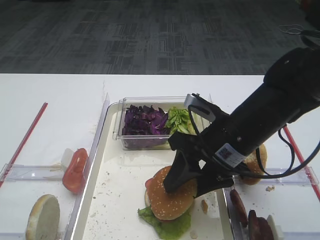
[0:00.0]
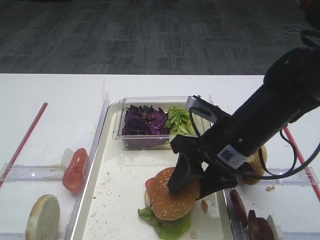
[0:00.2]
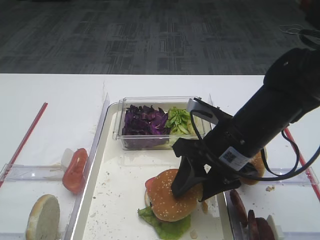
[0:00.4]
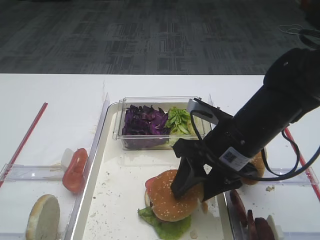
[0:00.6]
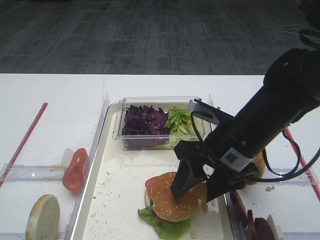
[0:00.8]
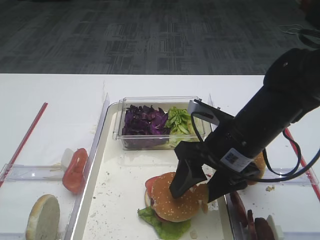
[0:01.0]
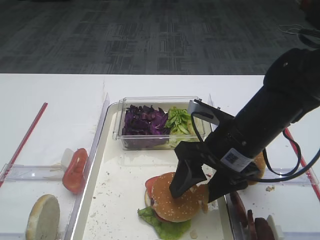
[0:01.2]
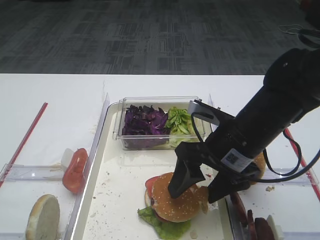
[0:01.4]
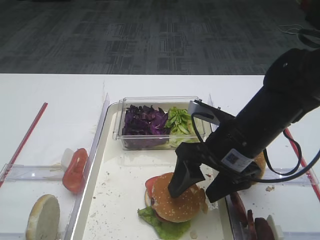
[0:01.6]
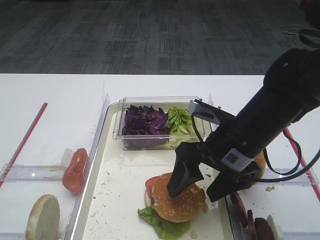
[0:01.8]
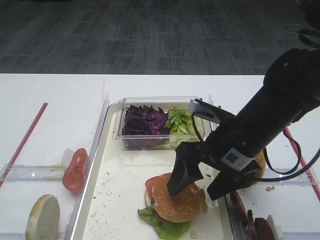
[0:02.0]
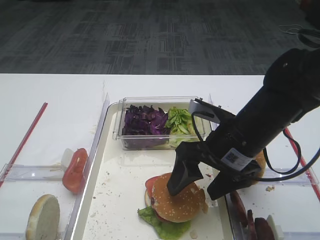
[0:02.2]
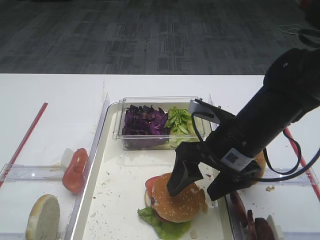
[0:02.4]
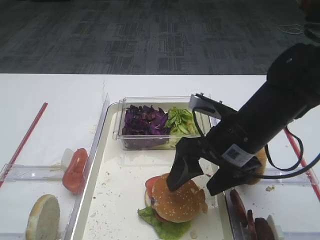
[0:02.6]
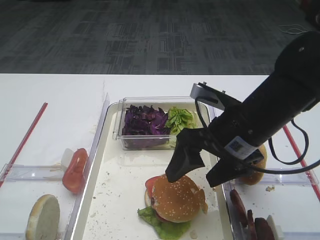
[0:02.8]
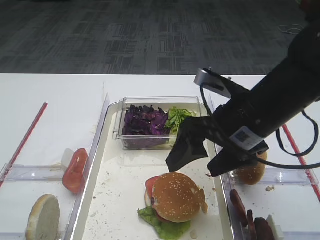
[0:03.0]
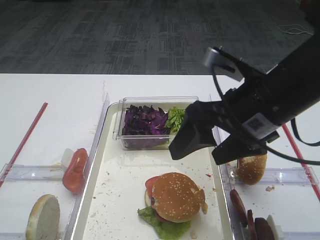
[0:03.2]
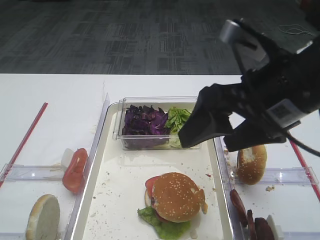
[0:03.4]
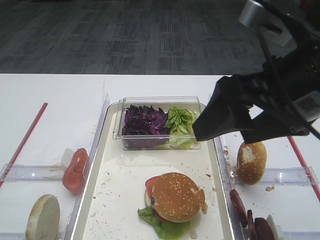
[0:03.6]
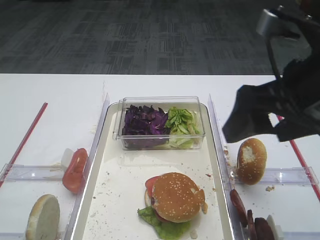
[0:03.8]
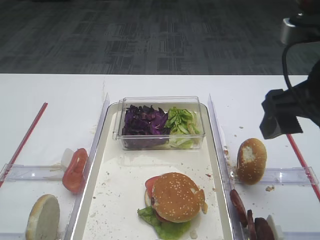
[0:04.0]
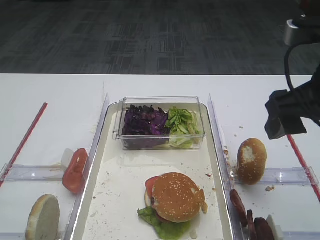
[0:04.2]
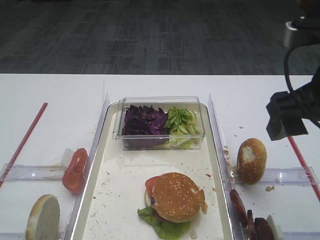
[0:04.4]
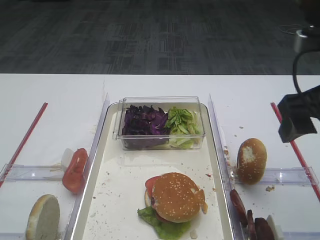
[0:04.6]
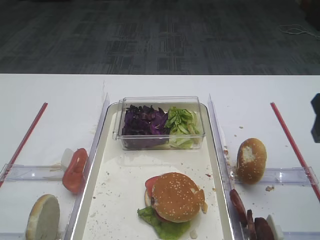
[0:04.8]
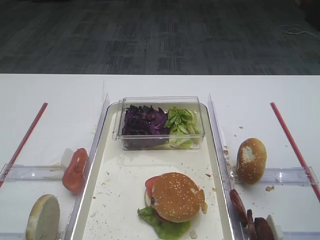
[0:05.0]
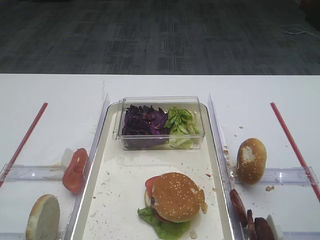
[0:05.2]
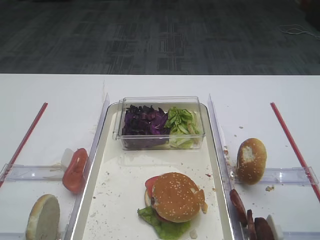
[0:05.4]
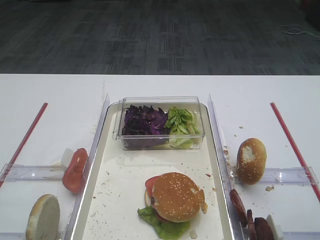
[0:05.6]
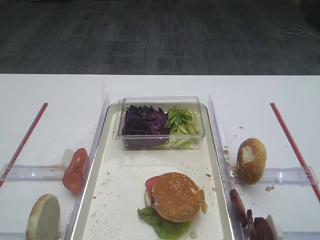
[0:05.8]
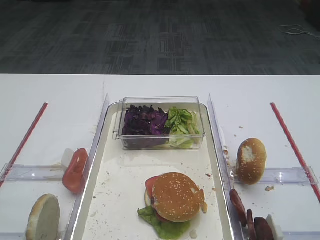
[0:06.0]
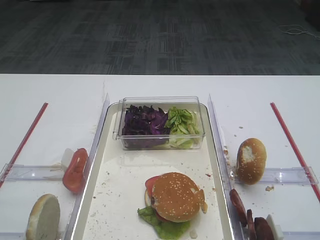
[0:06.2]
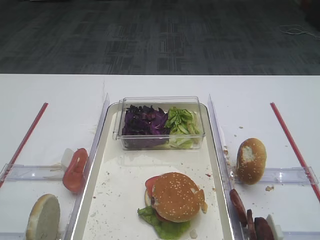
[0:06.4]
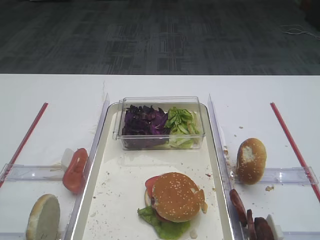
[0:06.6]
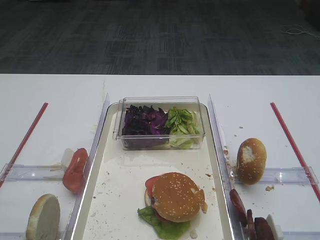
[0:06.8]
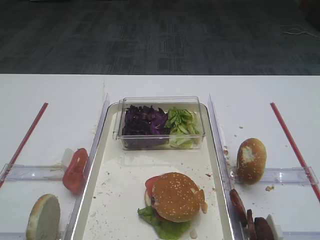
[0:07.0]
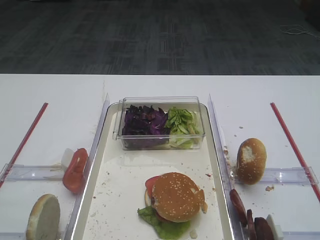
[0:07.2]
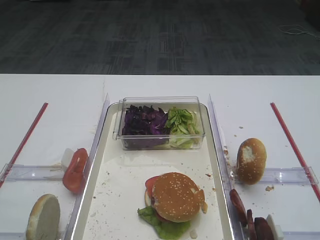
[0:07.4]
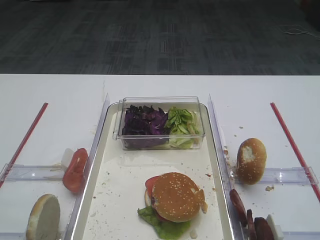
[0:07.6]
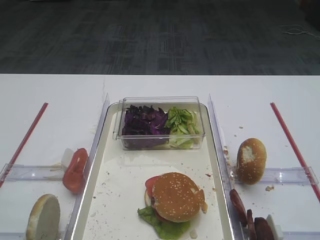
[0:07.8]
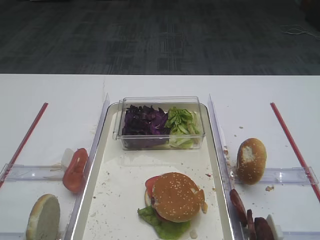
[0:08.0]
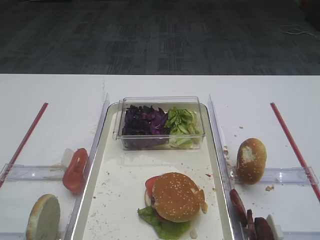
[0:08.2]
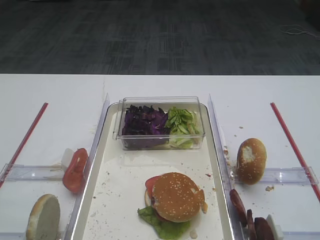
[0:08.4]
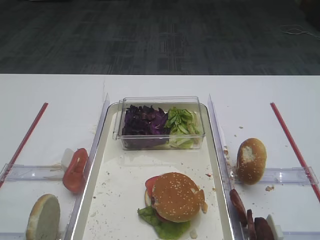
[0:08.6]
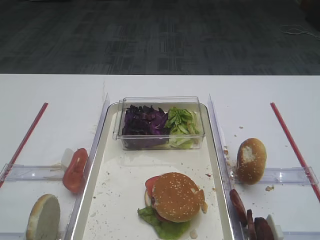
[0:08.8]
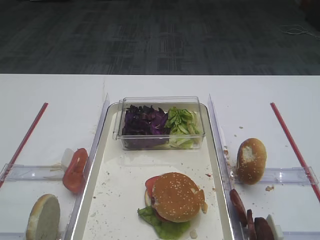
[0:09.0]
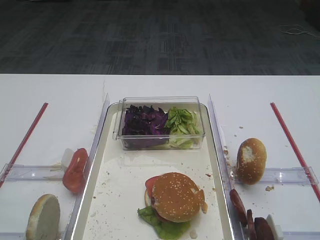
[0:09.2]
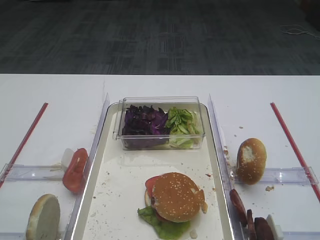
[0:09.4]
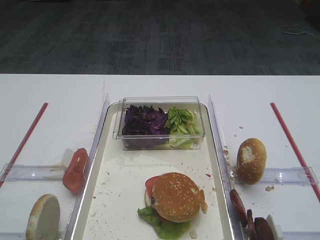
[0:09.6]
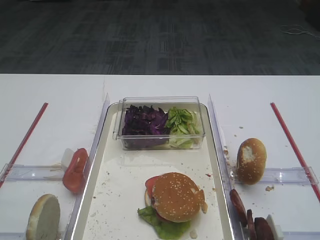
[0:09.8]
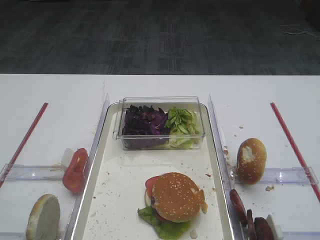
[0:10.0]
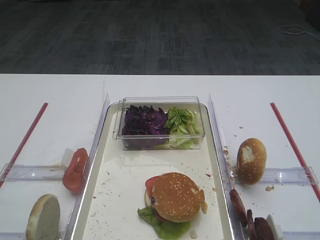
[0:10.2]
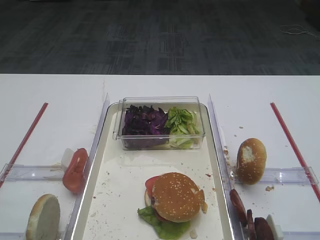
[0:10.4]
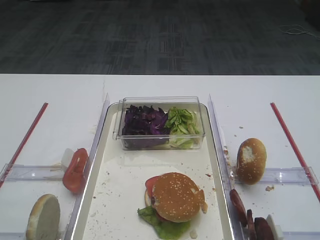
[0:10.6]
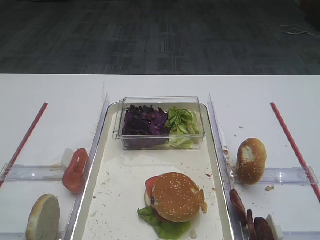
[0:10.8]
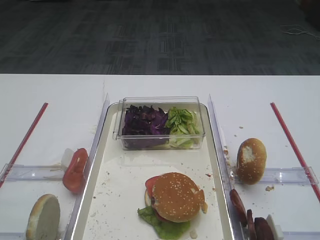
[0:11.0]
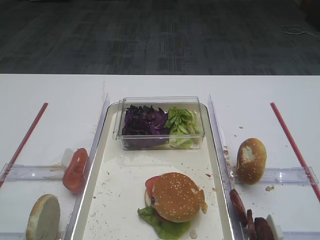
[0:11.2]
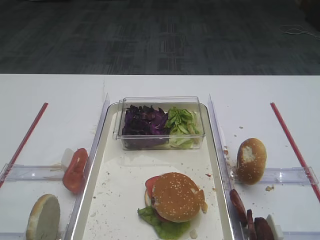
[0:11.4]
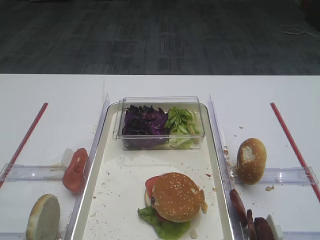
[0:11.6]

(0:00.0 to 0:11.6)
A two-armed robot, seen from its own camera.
Step, 0:00.0 - 0:02.0: Place the hamburger lid on the cutlet with the right gripper.
0:00.0 - 0:01.4: The right gripper opens up.
0:01.4 - 0:02.8: The grippers make only small movements.
0:02.8 - 0:04.4: The right gripper heads upward and to the right, covering some 15 cm.
0:04.4 - 0:05.8: The right gripper moves backward and to the right, about 15 cm.
0:07.2 - 0:11.6: The two grippers keep their place.

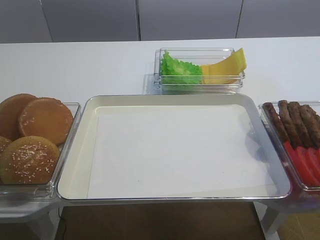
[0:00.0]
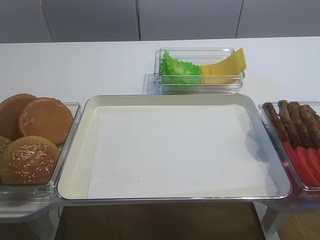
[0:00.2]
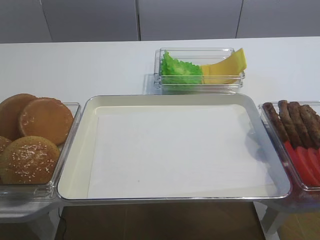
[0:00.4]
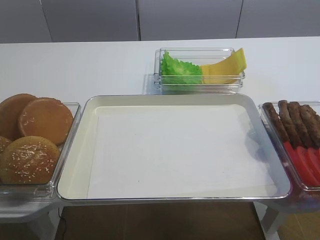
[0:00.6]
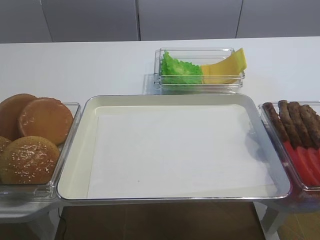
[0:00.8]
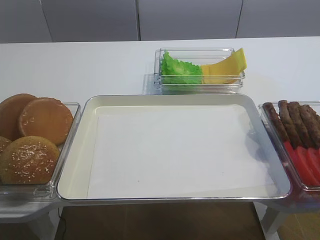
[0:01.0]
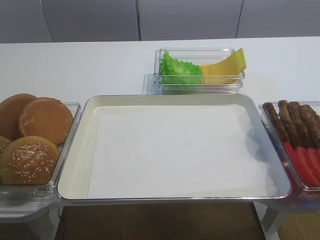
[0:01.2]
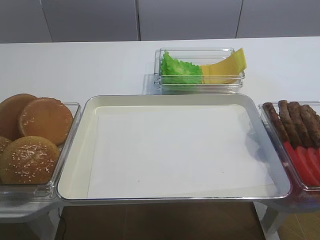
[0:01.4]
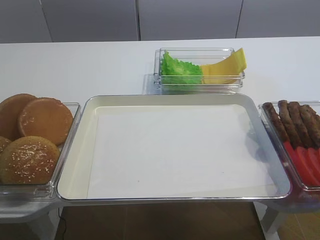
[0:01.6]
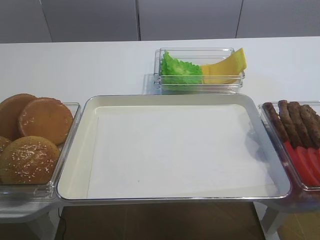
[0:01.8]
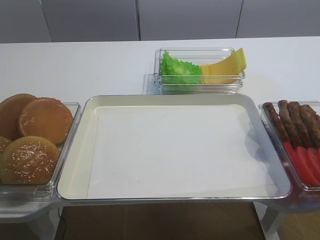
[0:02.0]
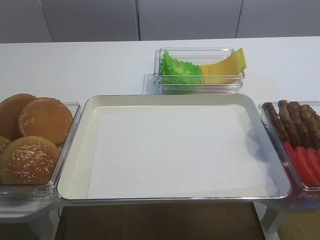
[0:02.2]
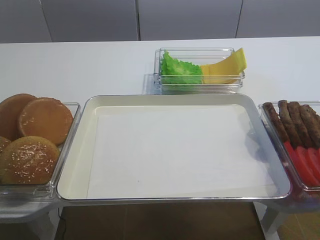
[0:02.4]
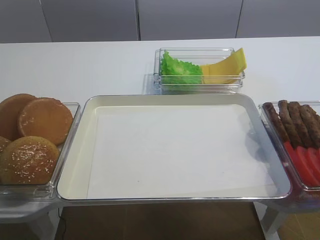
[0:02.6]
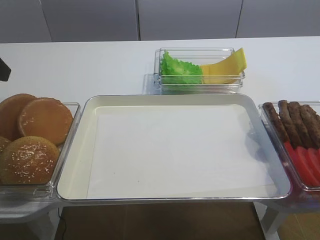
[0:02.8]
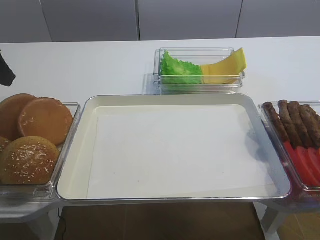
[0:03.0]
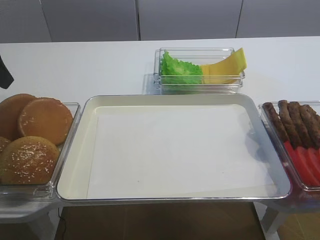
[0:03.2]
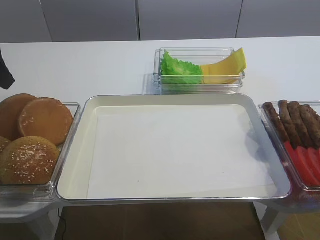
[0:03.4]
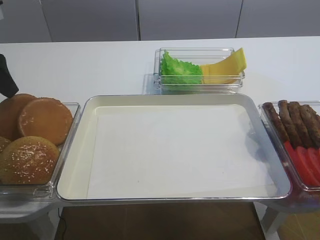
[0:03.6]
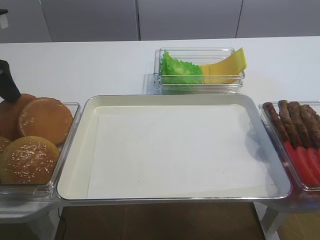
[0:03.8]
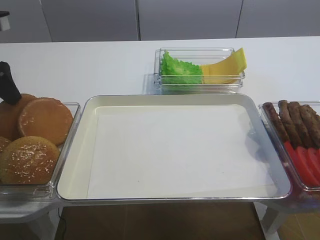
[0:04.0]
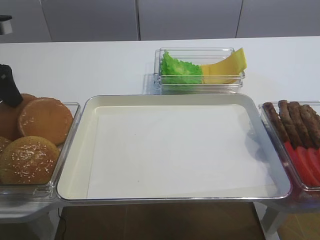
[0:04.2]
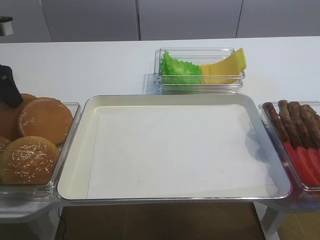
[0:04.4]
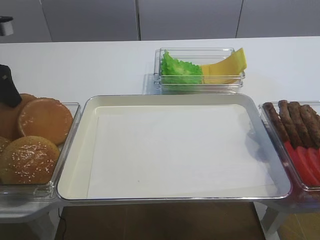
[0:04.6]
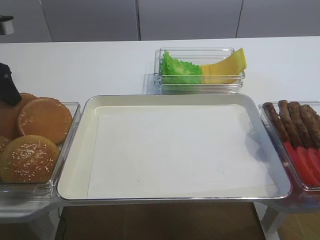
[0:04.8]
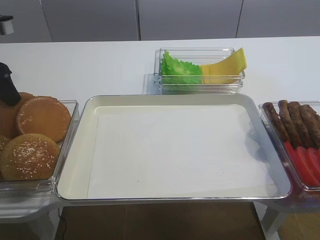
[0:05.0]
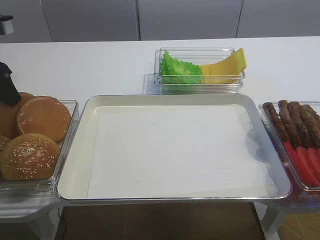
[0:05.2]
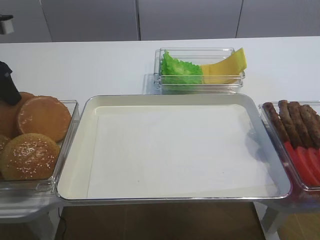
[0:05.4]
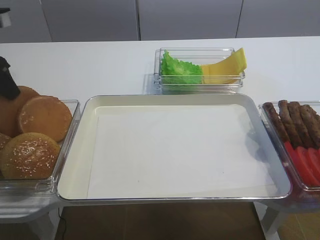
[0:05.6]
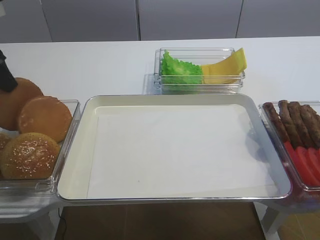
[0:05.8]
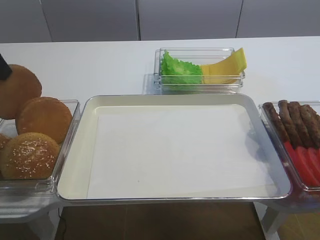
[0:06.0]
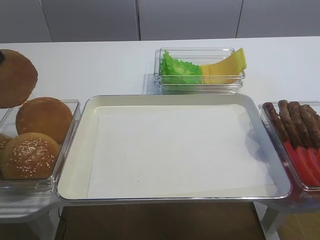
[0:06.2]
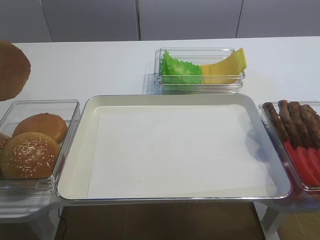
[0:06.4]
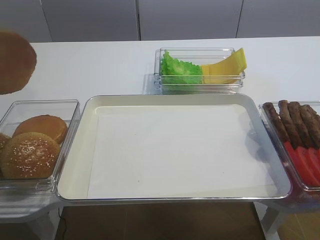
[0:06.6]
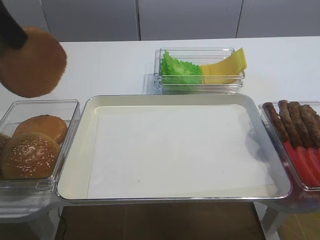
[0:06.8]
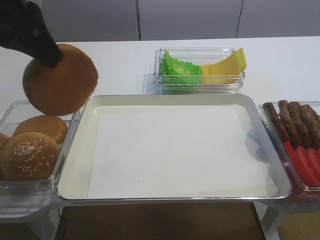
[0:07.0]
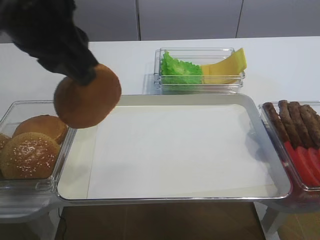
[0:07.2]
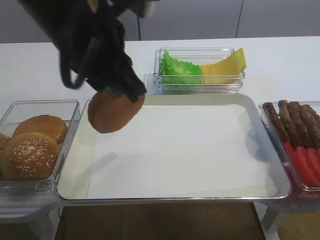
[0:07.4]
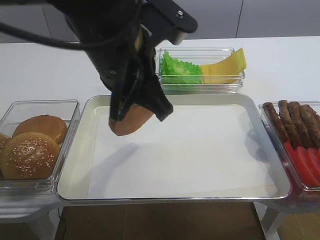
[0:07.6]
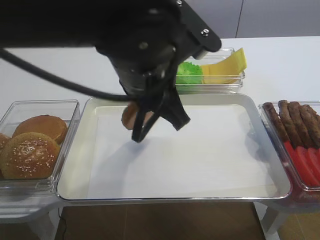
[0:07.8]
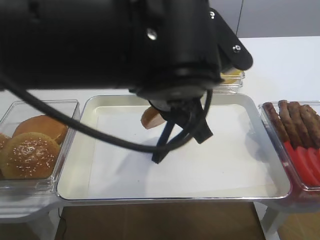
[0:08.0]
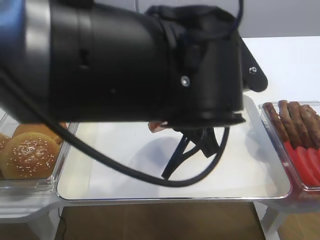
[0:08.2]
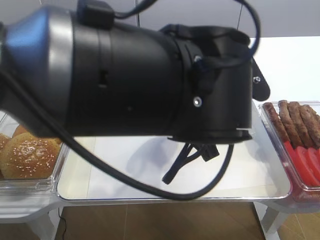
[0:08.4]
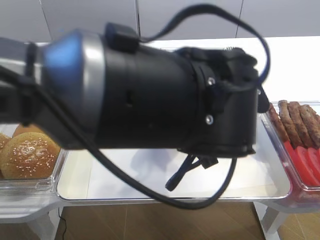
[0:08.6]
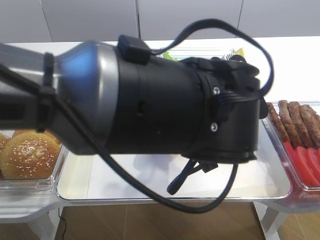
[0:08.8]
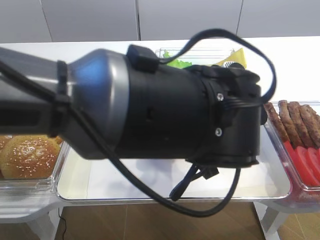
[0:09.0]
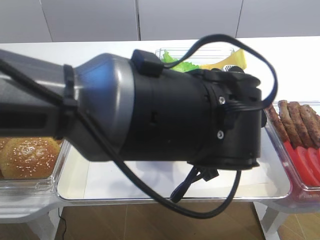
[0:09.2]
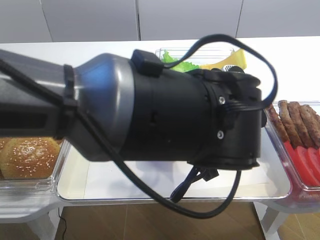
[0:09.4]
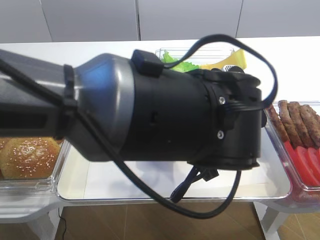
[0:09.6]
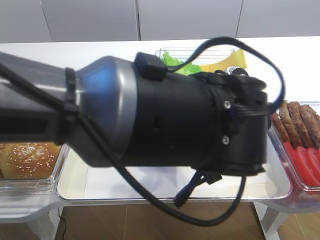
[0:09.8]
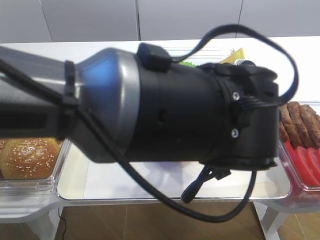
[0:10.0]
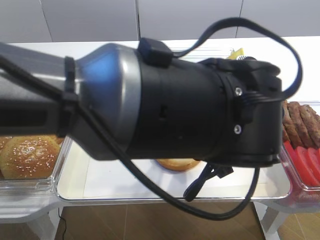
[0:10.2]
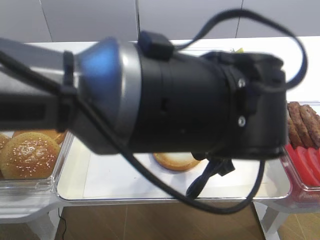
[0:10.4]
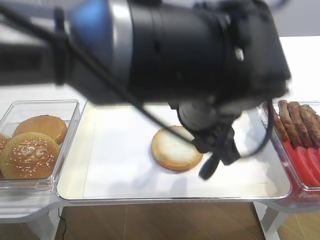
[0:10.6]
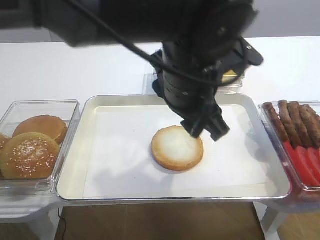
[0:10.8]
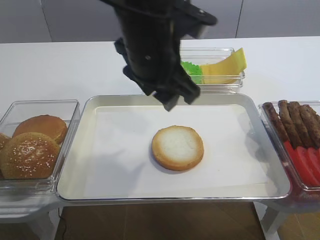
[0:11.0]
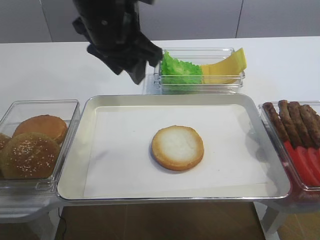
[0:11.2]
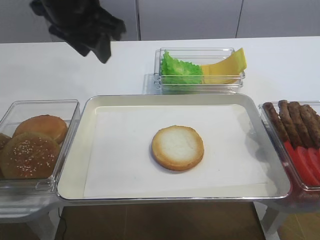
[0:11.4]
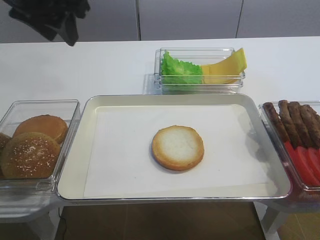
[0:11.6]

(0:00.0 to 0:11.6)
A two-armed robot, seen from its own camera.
Step, 0:00.0 - 0:06.0: Pick up the bread slice with the left gripper.
Step, 0:06.4 - 0:10.6: Place the bread slice on the tray with the left gripper.
0:02.8 - 0:04.4: The left gripper goes some 10 cm forward and downward.
0:04.4 - 0:05.8: The left gripper closes up.
0:05.8 - 0:07.2: The left gripper travels to the right and backward by about 20 cm.
0:07.2 - 0:08.8: The left gripper moves to the right and downward, about 20 cm.
0:08.8 - 0:10.2: The left gripper opens its fingers.
0:10.2 - 0:11.6: The left gripper heads to the left, upward and forward, covering about 30 cm.
